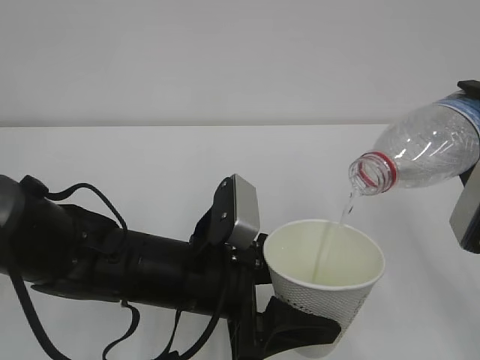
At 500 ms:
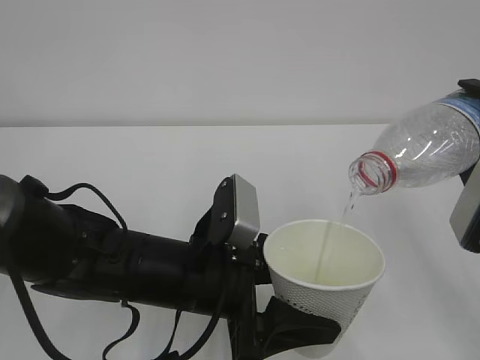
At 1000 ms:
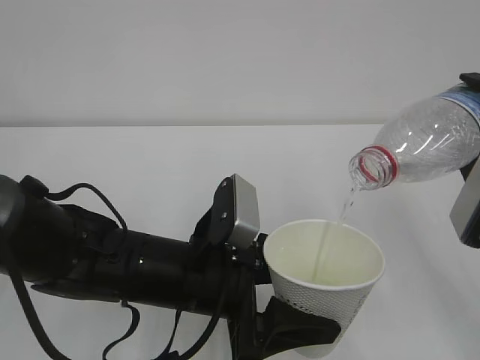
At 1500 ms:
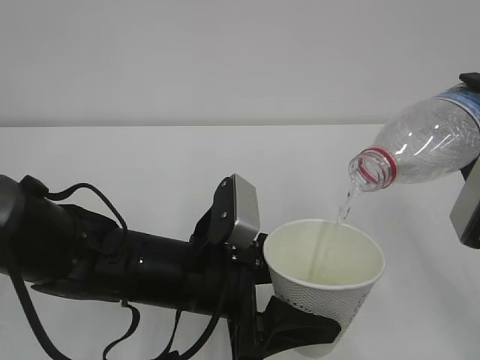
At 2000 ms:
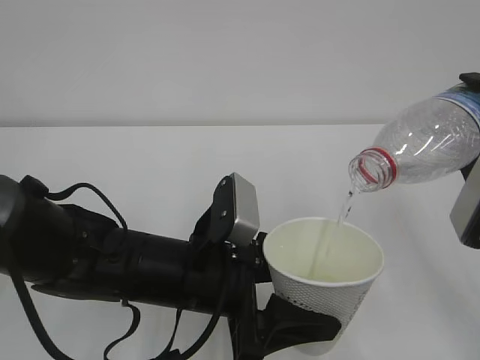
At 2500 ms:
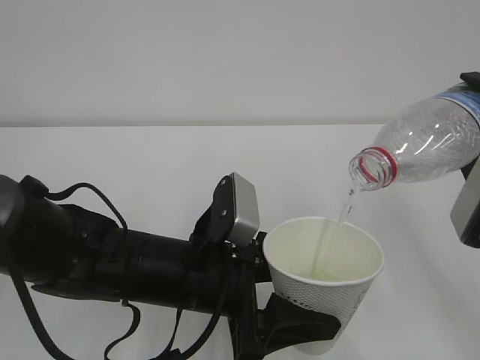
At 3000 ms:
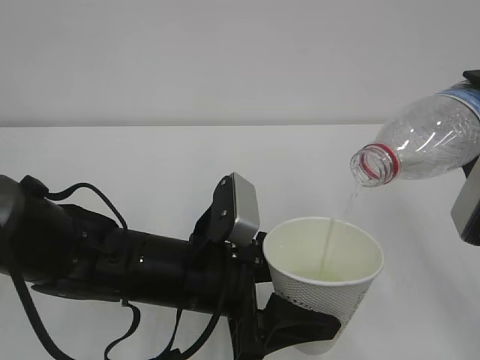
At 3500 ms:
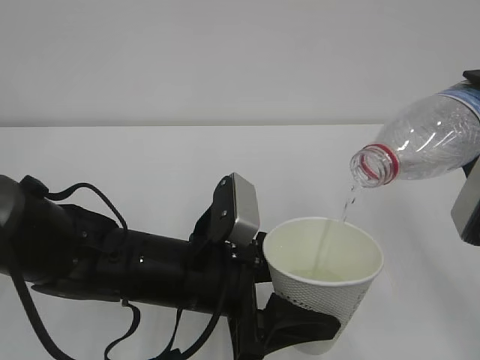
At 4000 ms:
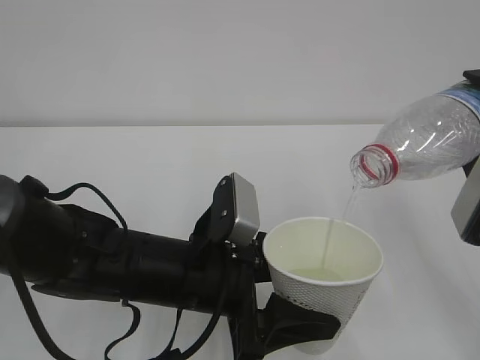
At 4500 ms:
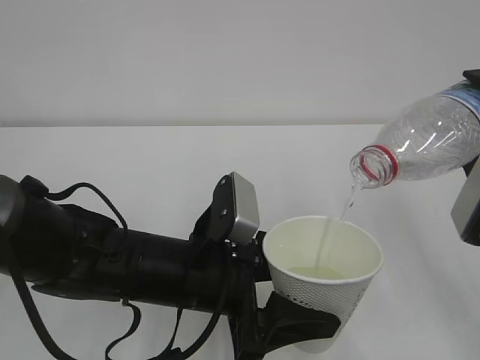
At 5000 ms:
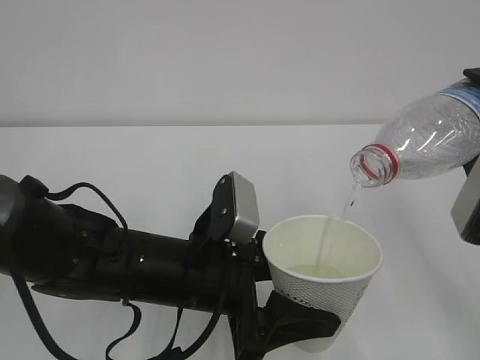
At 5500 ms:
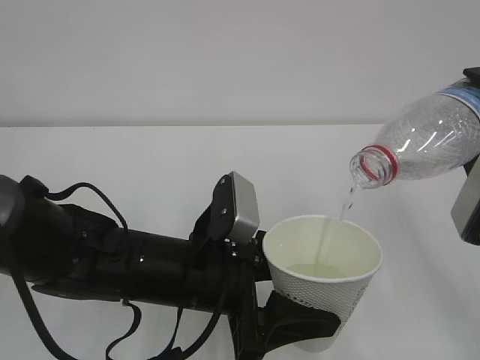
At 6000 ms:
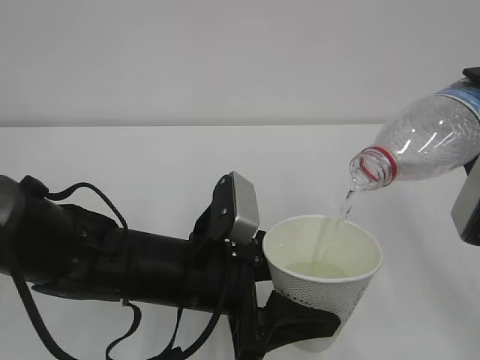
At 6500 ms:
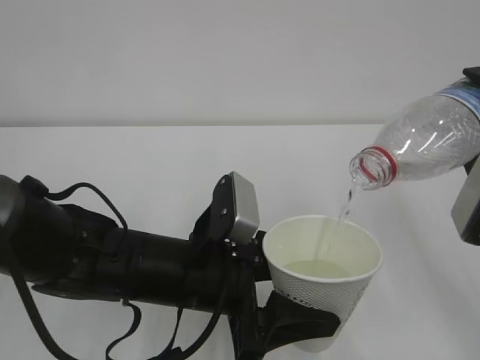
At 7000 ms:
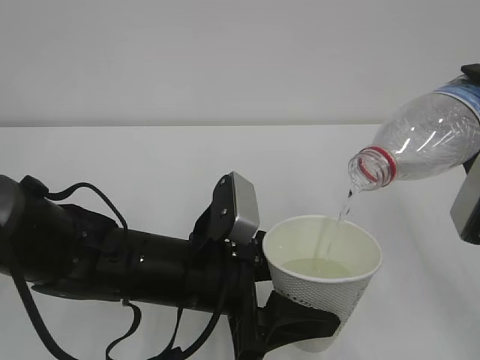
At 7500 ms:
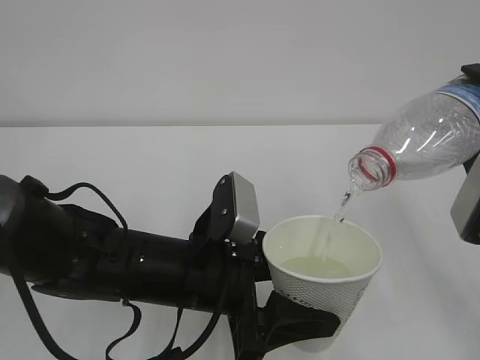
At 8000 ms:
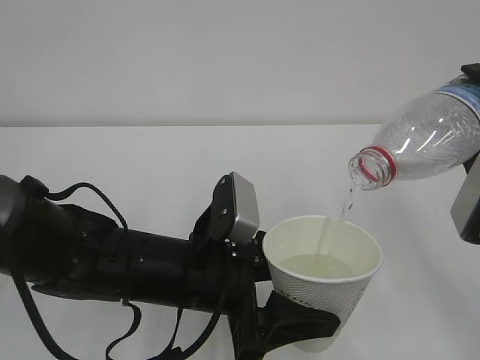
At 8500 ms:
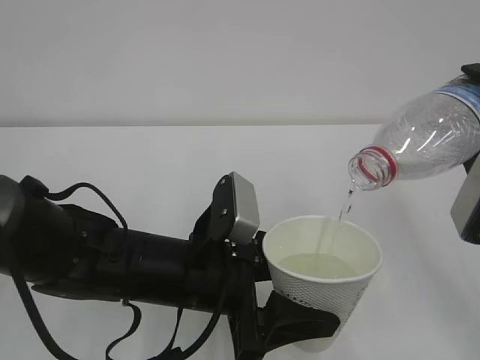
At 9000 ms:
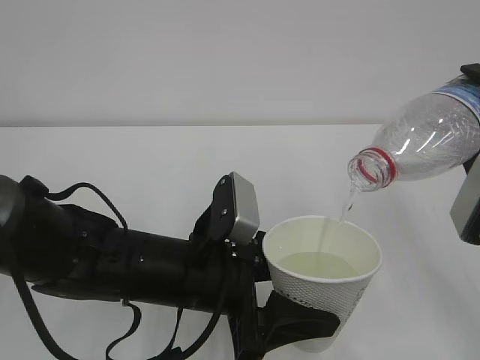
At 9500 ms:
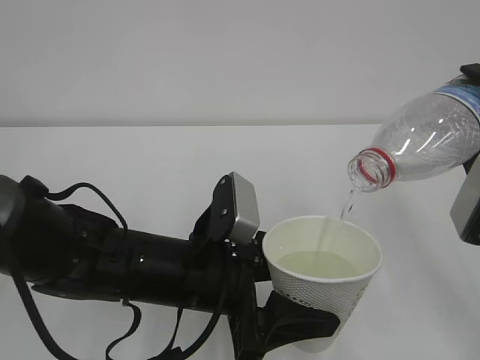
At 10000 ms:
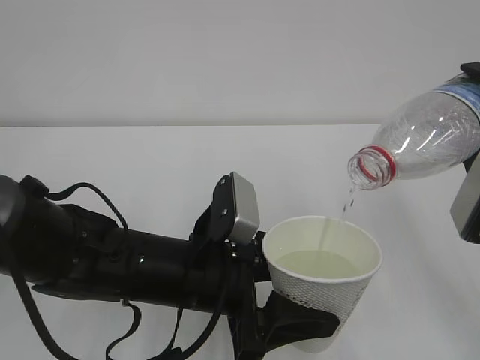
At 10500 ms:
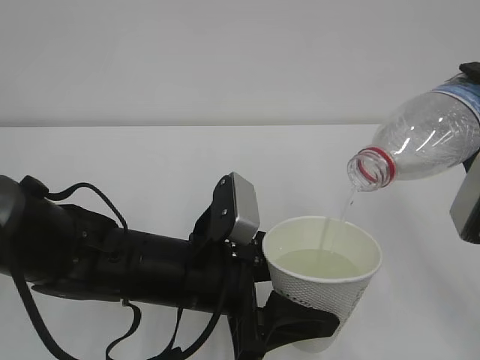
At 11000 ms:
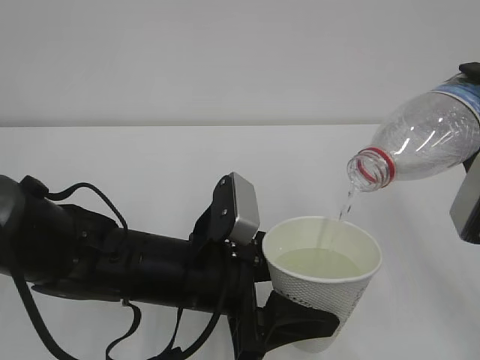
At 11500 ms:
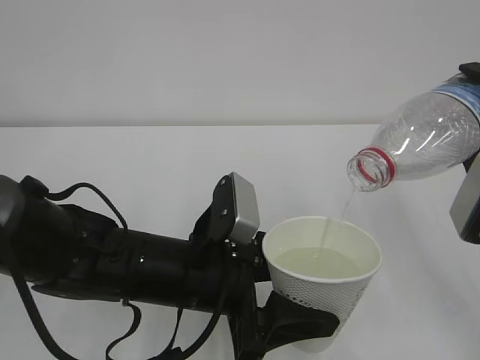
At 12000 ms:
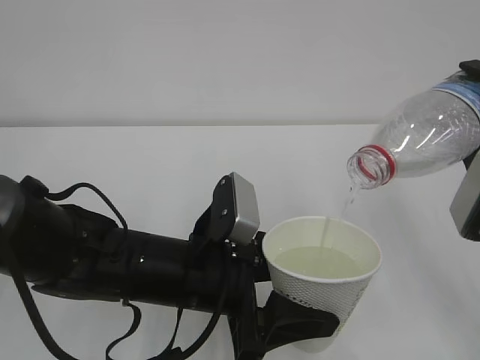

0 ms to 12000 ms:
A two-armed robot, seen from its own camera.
0 ms to 8000 ms: Neither gripper changes place.
8000 ms to 12000 ms: The two grippers keep their place.

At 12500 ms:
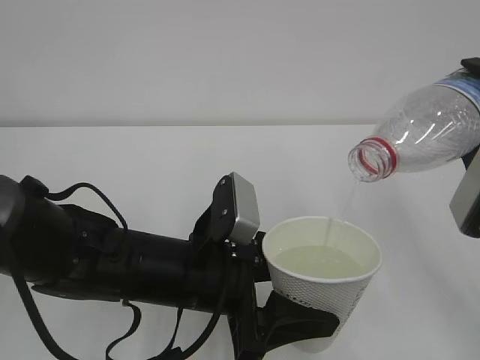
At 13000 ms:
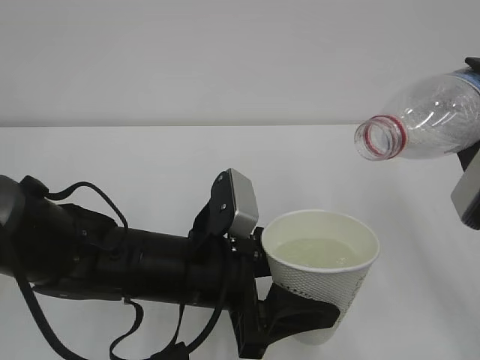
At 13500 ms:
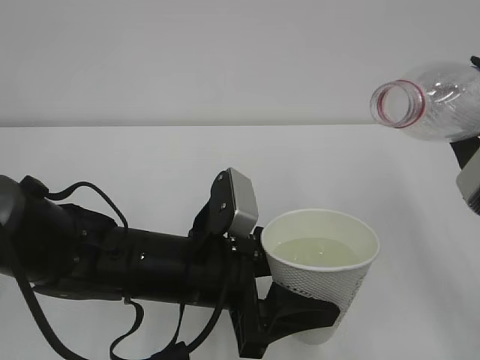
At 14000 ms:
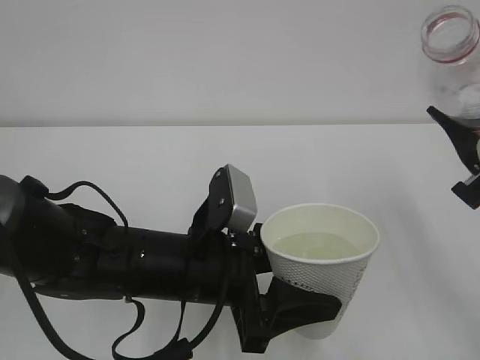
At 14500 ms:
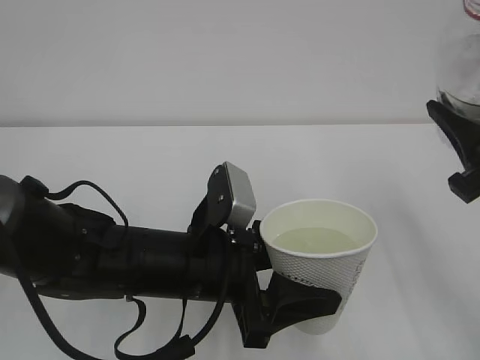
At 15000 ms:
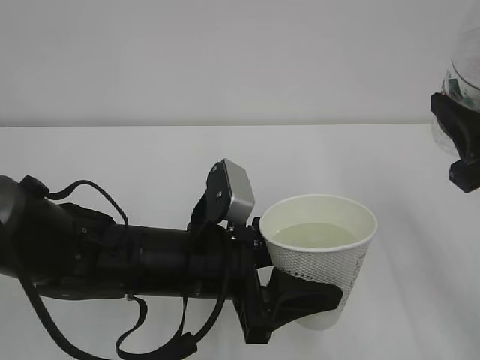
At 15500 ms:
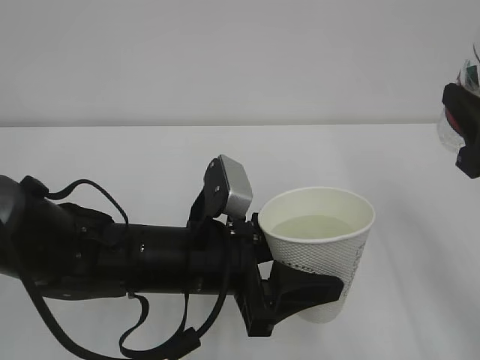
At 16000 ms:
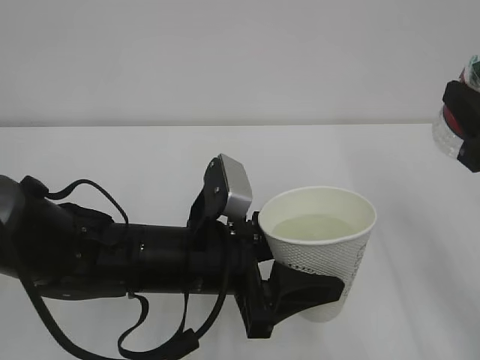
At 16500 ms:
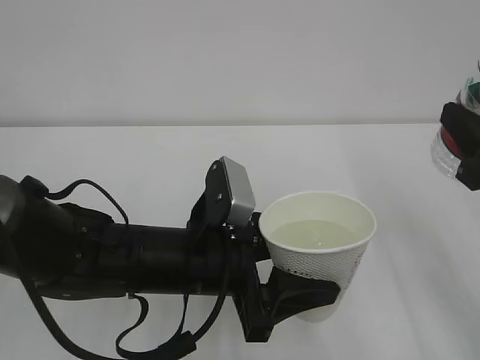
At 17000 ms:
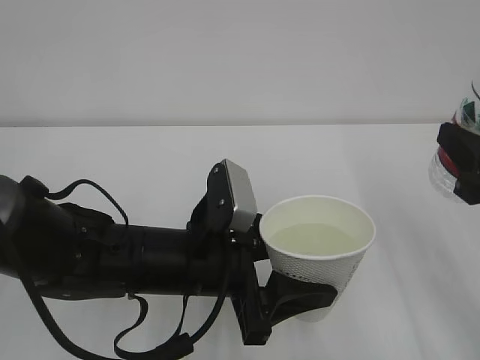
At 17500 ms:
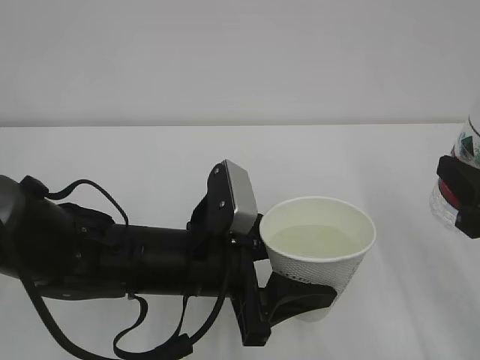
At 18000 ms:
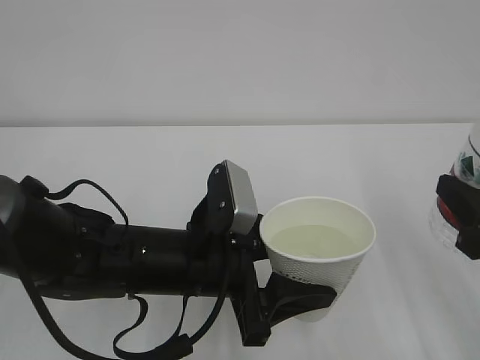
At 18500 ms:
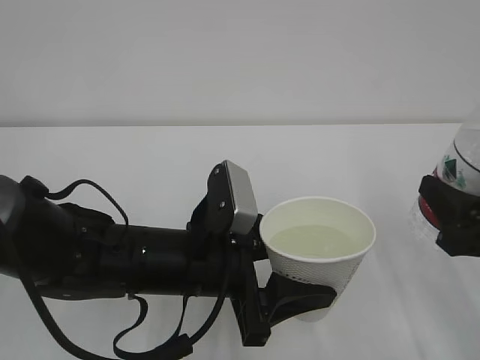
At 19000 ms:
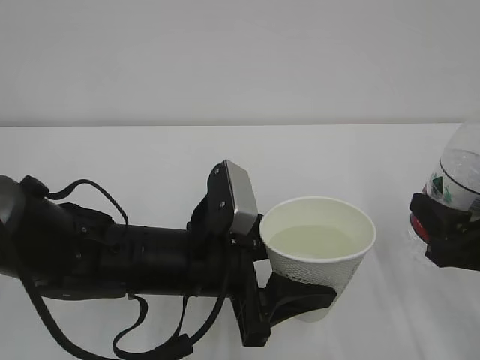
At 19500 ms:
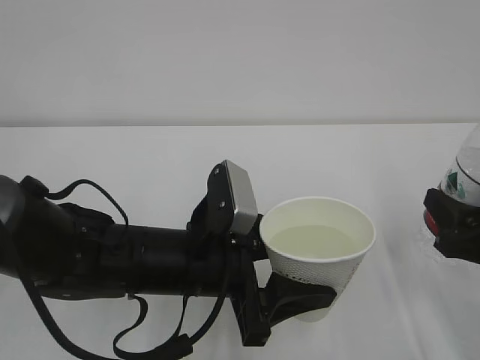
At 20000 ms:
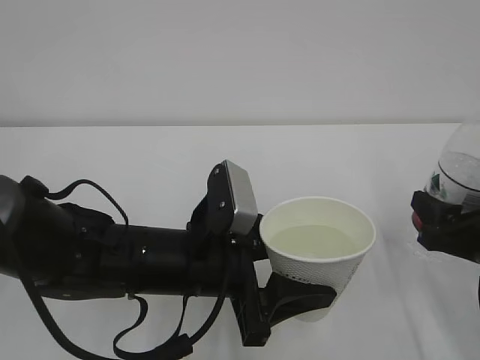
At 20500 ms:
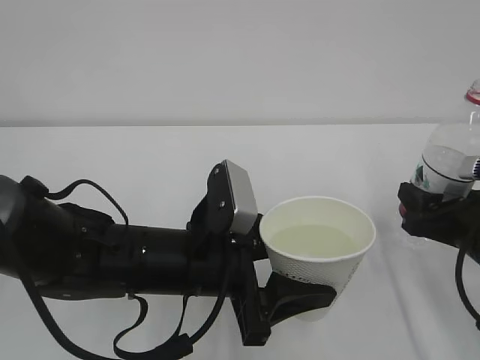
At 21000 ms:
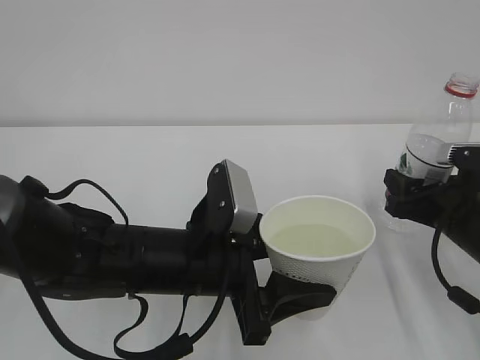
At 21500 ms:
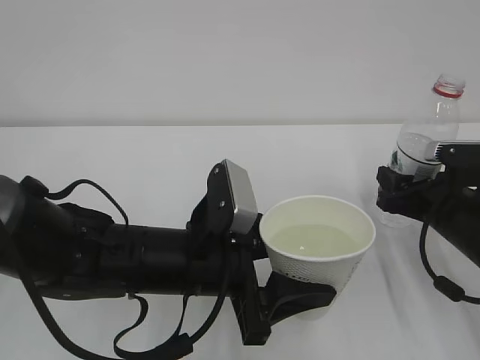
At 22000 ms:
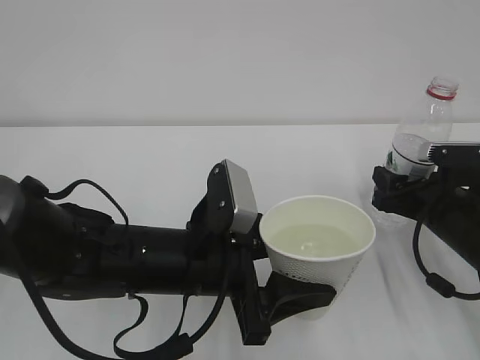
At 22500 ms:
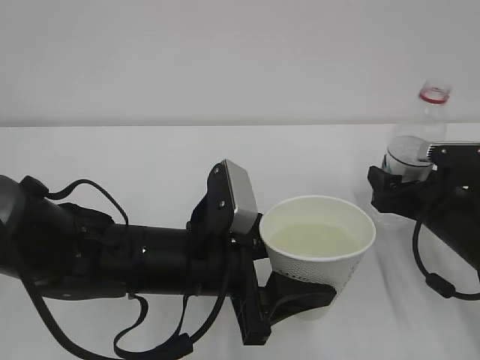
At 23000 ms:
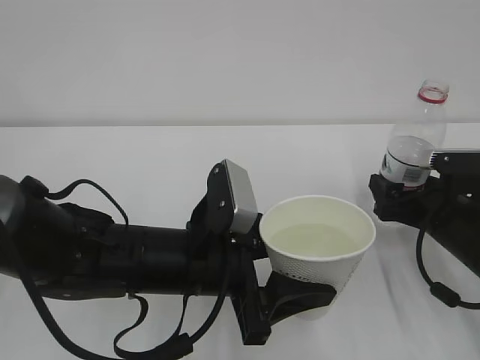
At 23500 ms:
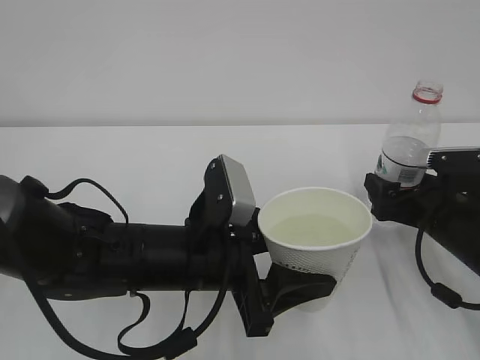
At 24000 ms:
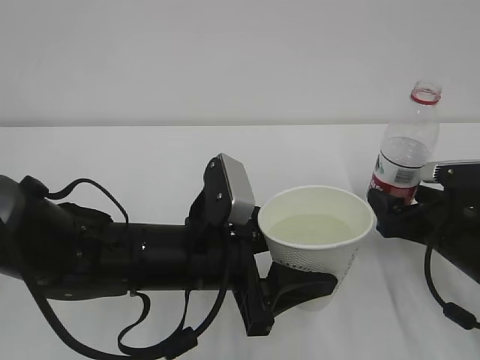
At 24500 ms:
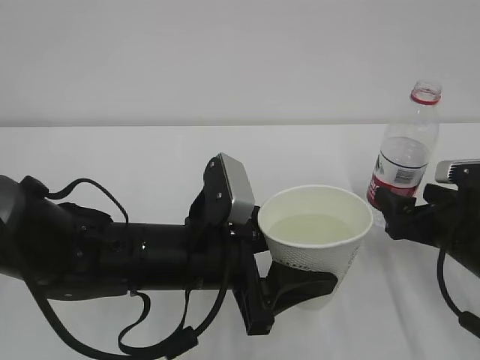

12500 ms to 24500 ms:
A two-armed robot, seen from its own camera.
16500 ms to 18500 ms: The right gripper heads downward, covering some 5 cm.
18500 ms to 20500 ms: The right gripper goes about 5 cm forward.
20500 ms to 22500 ms: The right gripper heads forward, covering roughly 5 cm, and opens its fingers.
22500 ms to 24500 ms: The grippers stay close to where they were, moving slightly.

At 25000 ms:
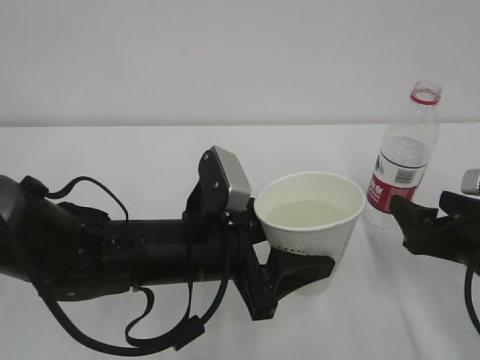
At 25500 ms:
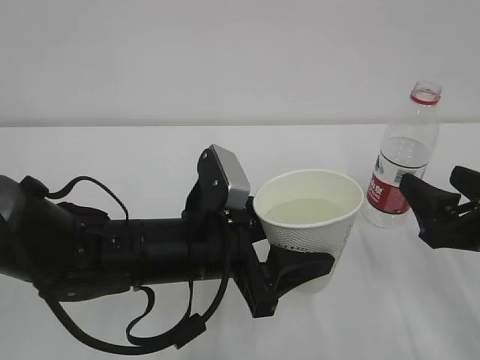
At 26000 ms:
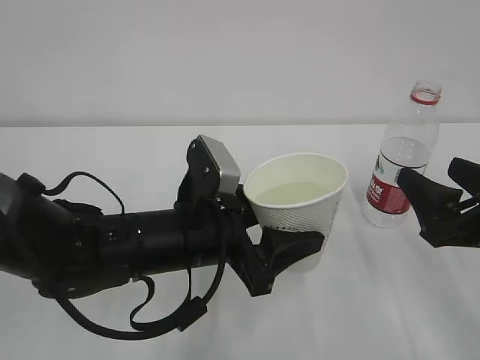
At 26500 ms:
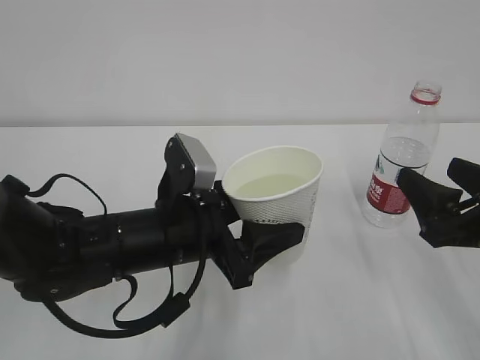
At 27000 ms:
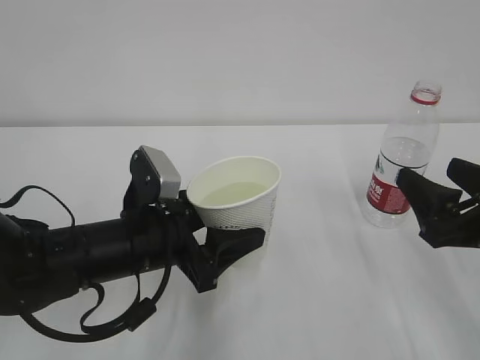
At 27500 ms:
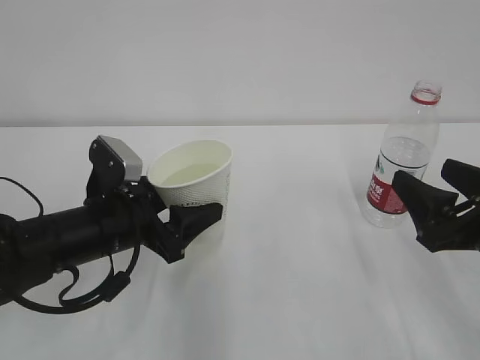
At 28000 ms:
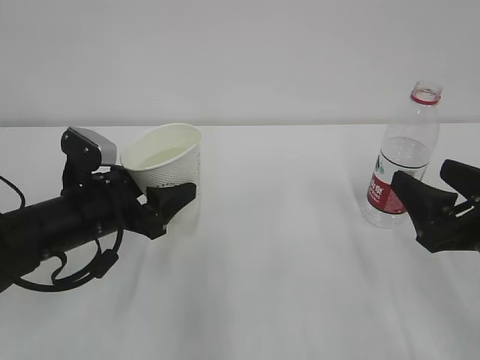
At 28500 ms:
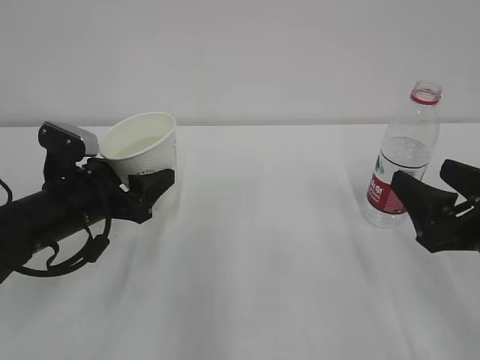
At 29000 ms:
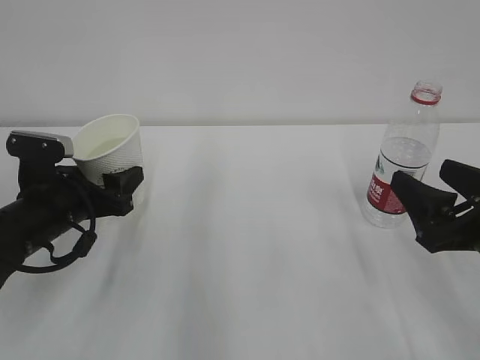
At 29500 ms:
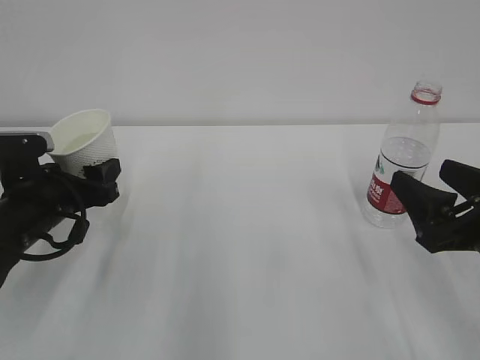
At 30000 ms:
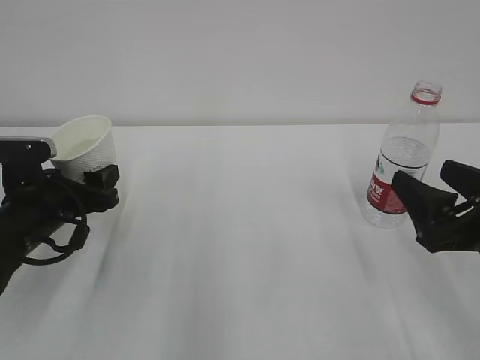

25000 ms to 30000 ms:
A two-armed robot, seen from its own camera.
25000 ms to 27500 ms: The left gripper travels to the left by about 10 cm.
27500 ms to 30000 ms: The left gripper shifts some 10 cm to the left.
